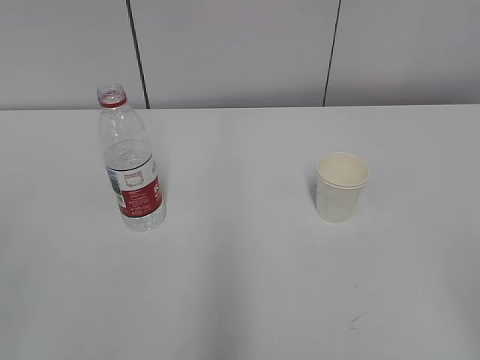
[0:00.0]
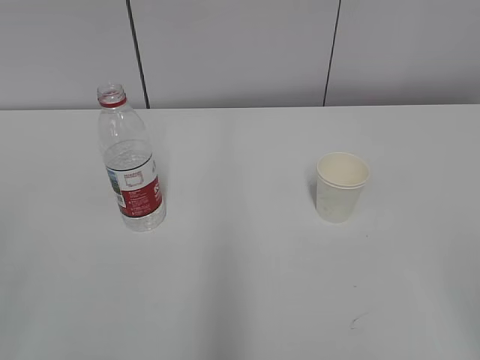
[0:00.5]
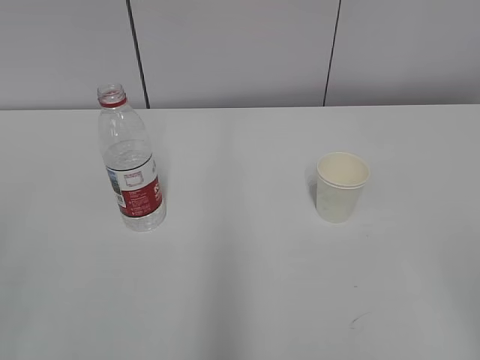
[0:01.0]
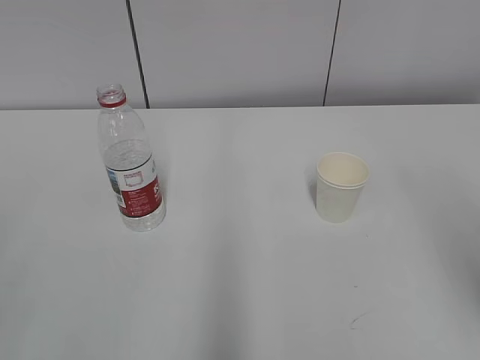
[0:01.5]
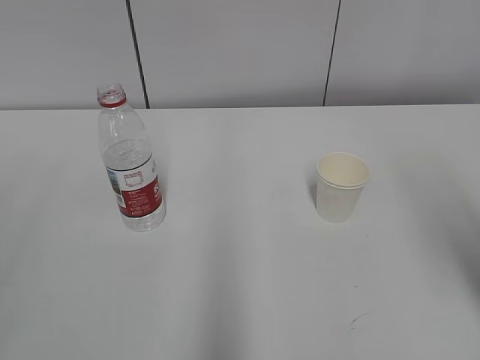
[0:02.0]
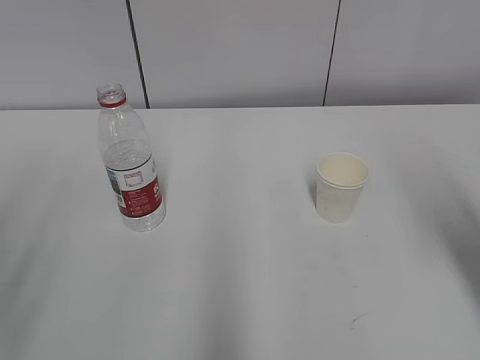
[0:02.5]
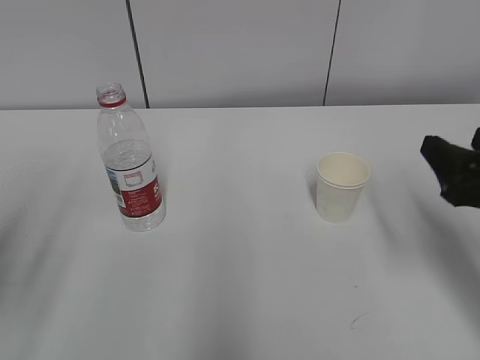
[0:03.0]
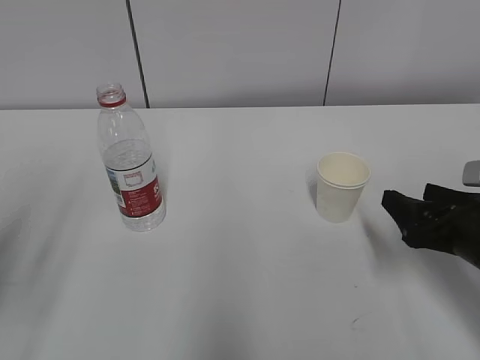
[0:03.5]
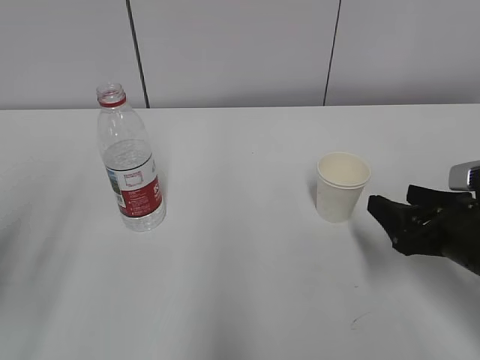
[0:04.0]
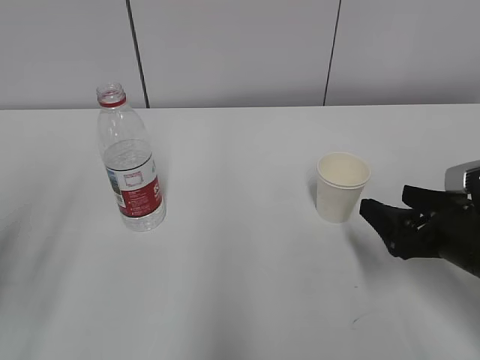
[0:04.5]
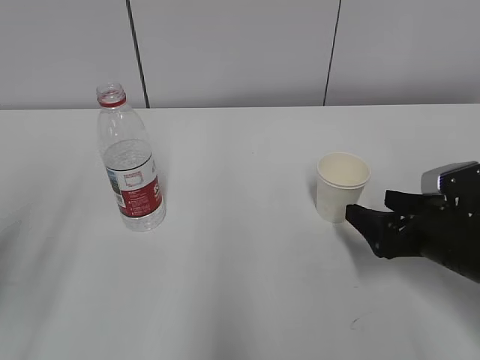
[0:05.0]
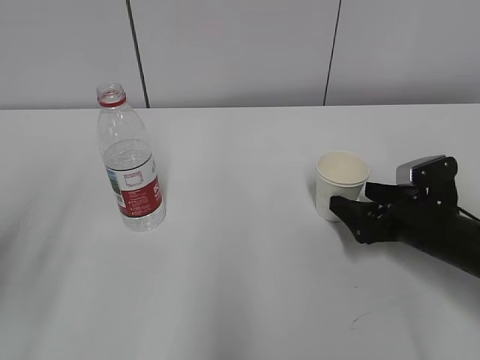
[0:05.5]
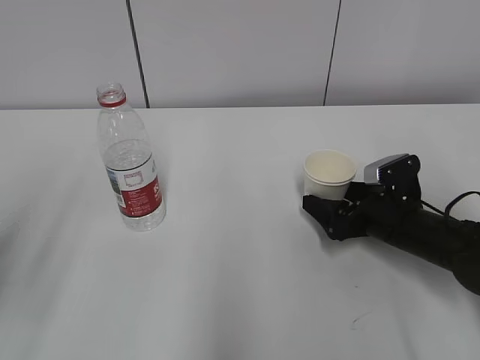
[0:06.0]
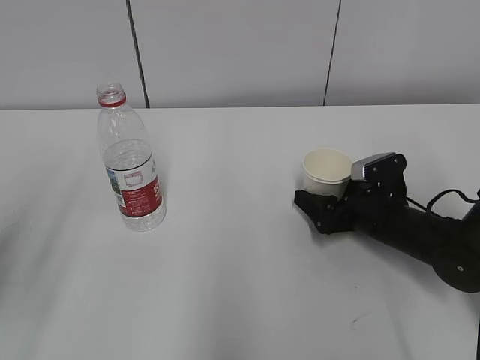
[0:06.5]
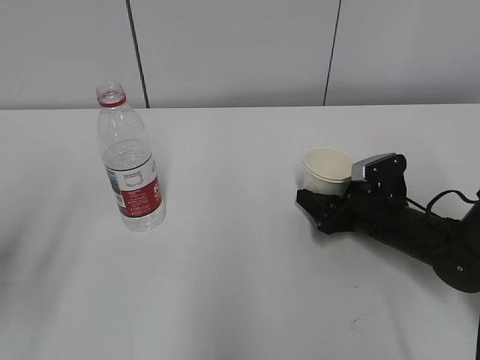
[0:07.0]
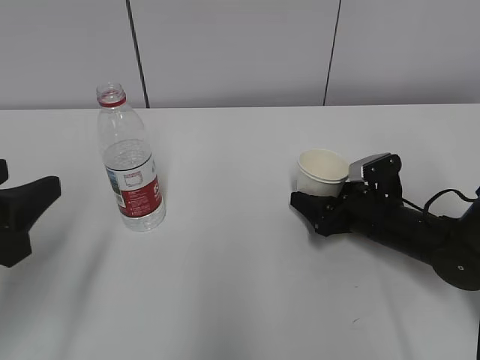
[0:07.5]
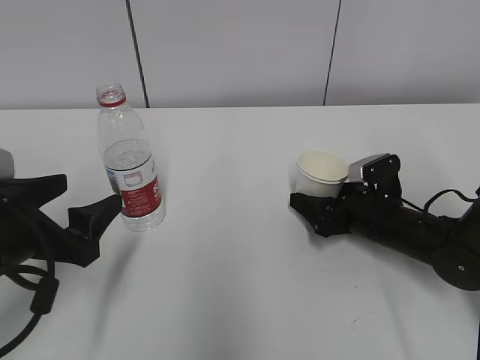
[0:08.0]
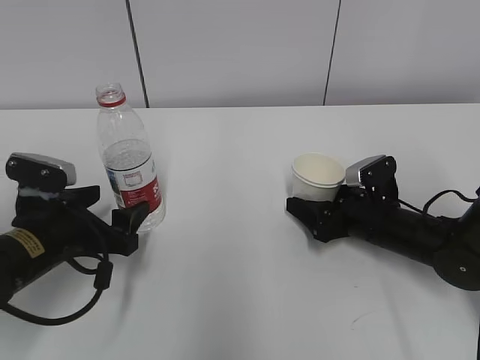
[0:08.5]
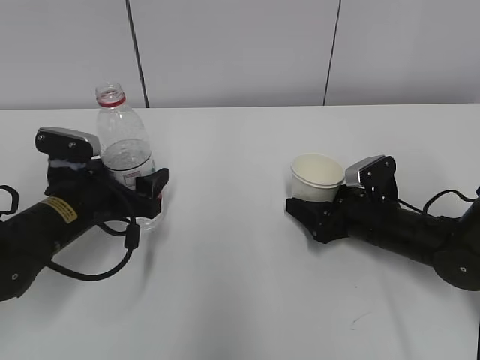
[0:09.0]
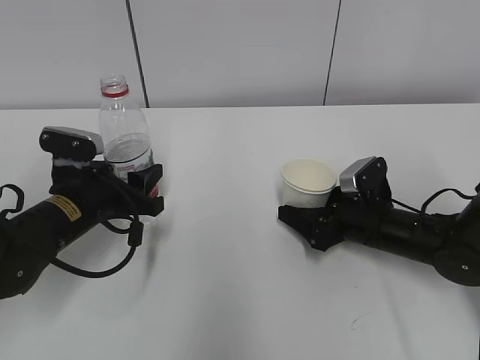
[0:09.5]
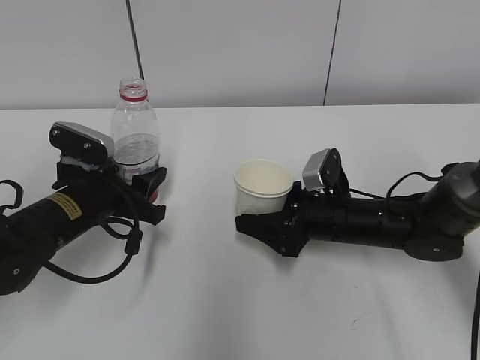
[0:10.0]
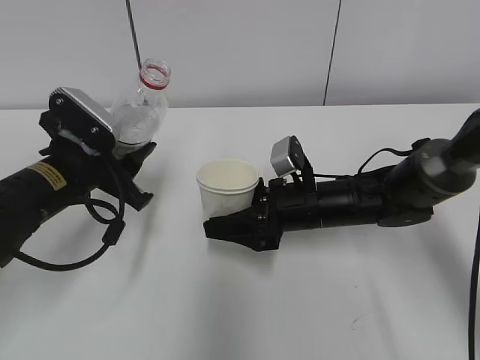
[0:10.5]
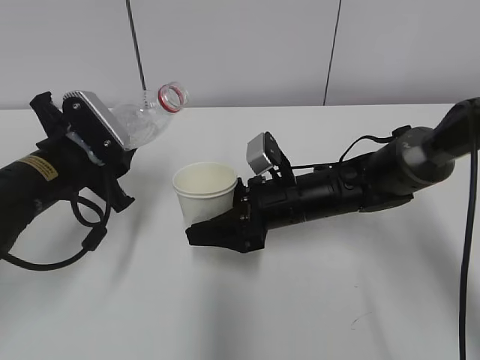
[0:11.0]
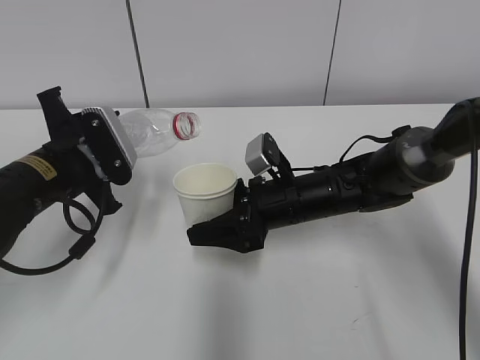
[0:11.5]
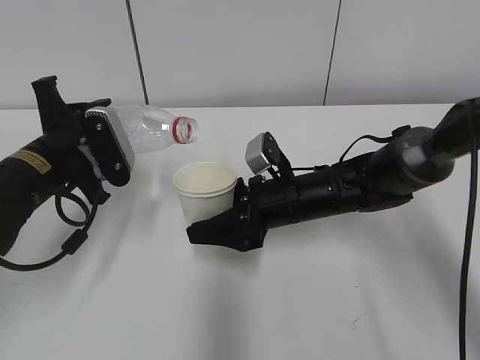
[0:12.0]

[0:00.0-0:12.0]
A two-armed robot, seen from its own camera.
Step, 0:00.0 to 0:06.0: Grab the paper cup with the right hand.
Step, 0:06.5 to 0:08.0: Grab the water bottle with the left hand.
Step, 0:08.5 to 0:10.5: Lift the paper cup with the right hand.
0:02.0 to 0:04.0: The right gripper moves downward and forward, roughly 20 cm.
0:04.0 to 0:06.0: The right gripper heads forward and downward, covering about 10 cm, and opens up.
0:06.0 to 0:08.0: The right gripper closes; the left gripper travels downward, forward and to the right by about 15 cm, and opens.
0:08.0 to 0:10.0: The right gripper is displaced to the left by roughly 5 cm. Meanwhile the left gripper is displaced forward by some 10 cm, and closes up.
0:10.0 to 0:12.0: The left gripper shifts some 5 cm upward, while the right gripper is displaced to the left by roughly 5 cm.

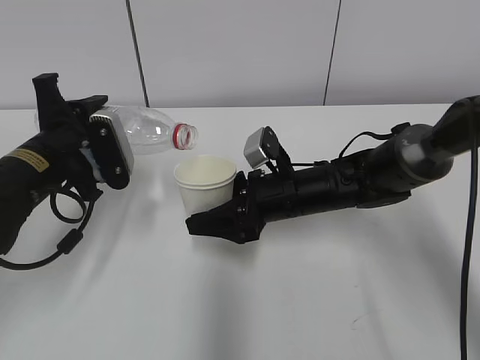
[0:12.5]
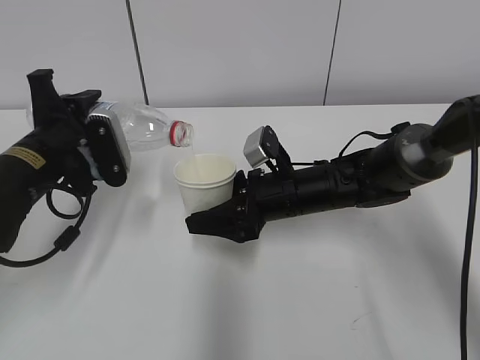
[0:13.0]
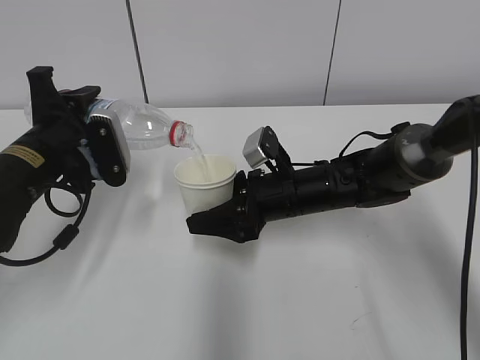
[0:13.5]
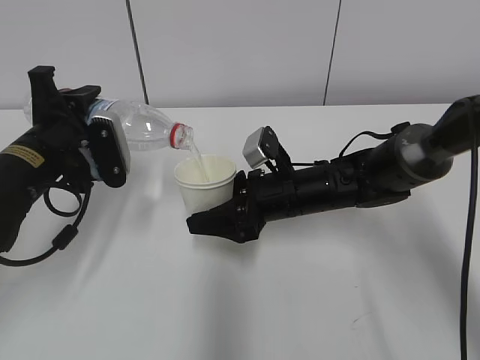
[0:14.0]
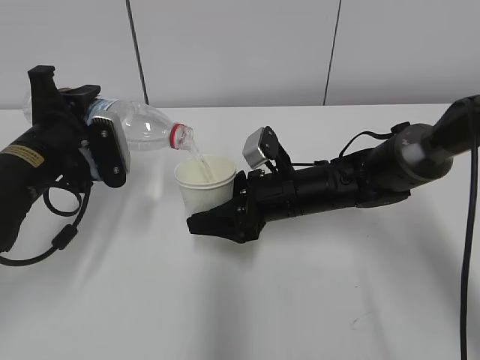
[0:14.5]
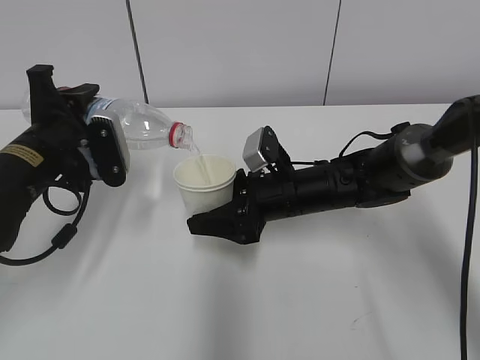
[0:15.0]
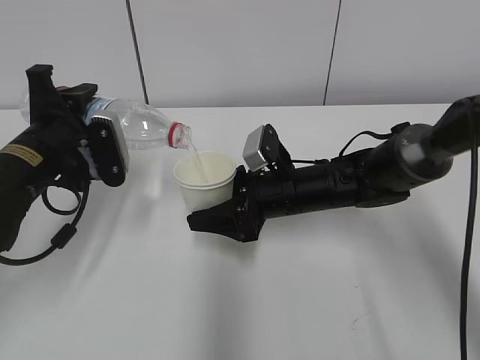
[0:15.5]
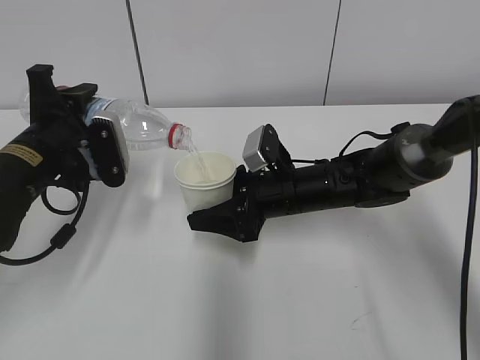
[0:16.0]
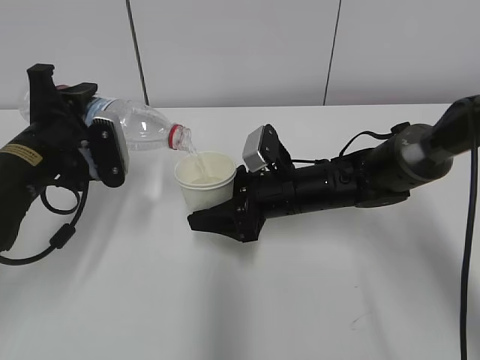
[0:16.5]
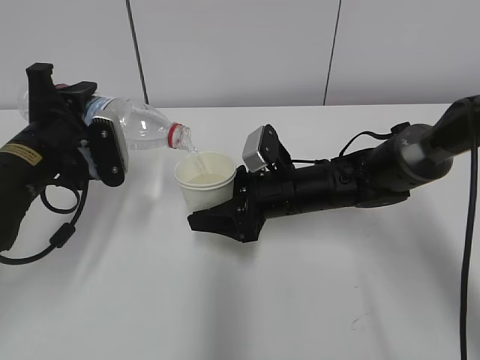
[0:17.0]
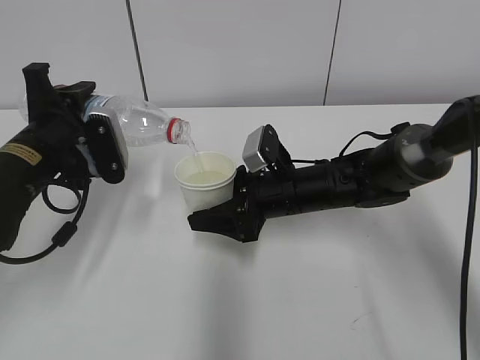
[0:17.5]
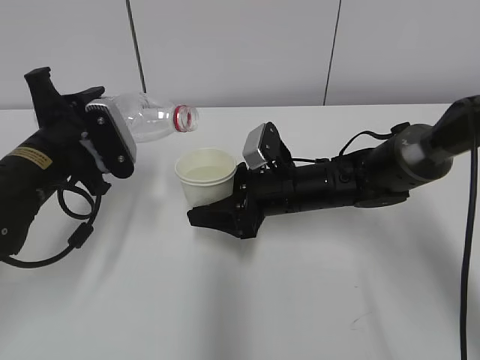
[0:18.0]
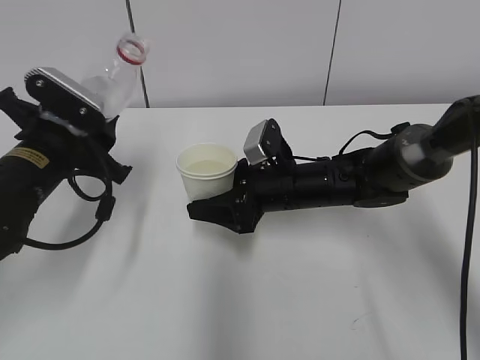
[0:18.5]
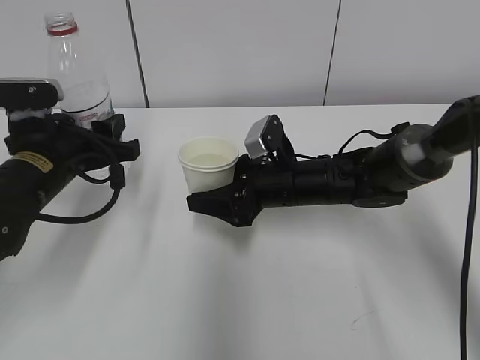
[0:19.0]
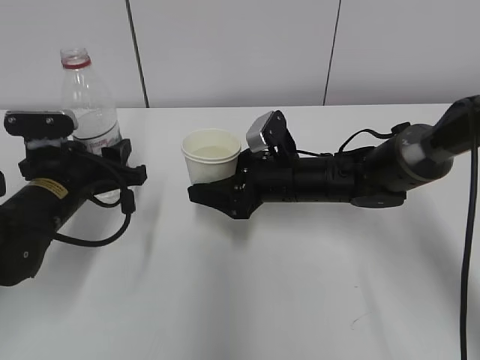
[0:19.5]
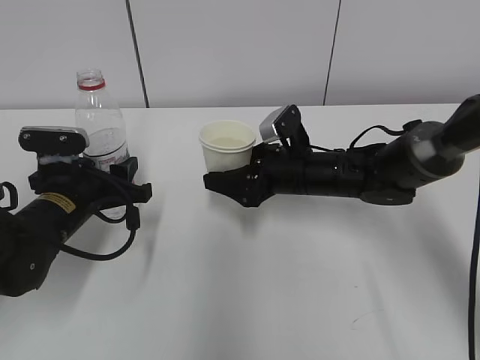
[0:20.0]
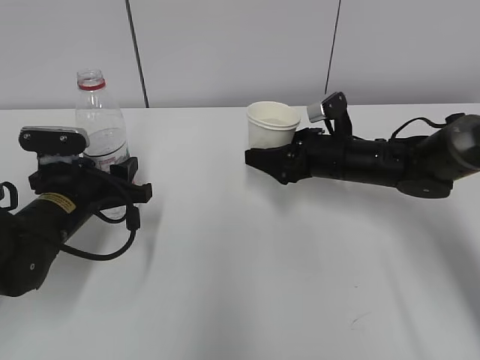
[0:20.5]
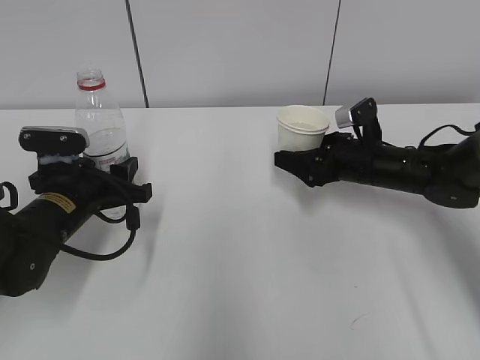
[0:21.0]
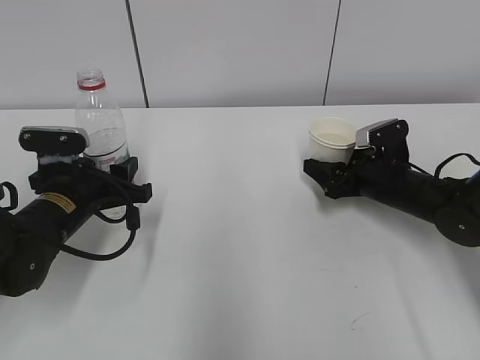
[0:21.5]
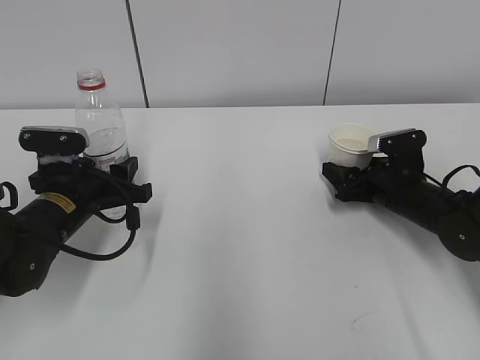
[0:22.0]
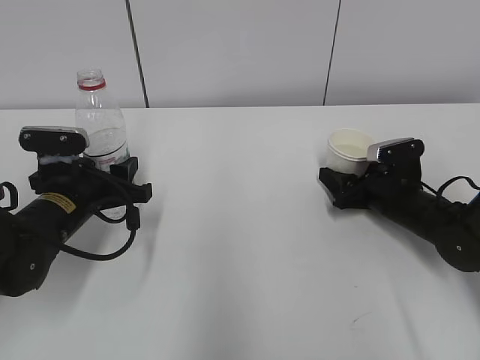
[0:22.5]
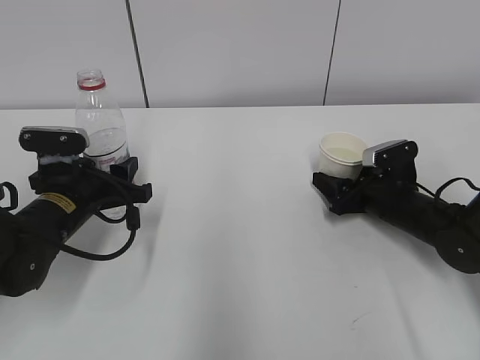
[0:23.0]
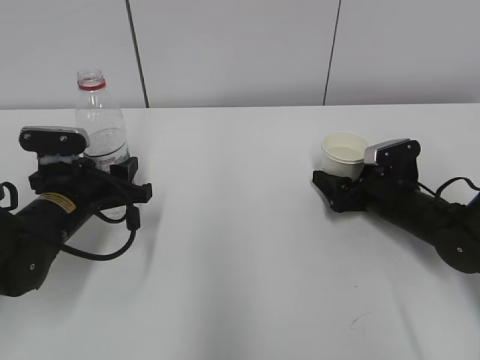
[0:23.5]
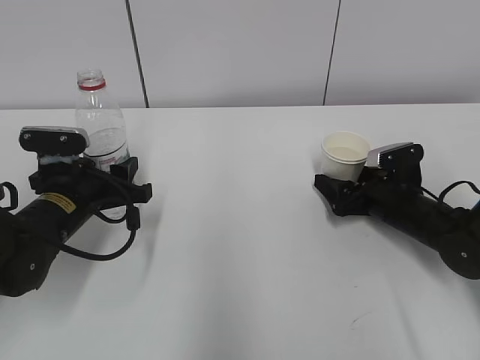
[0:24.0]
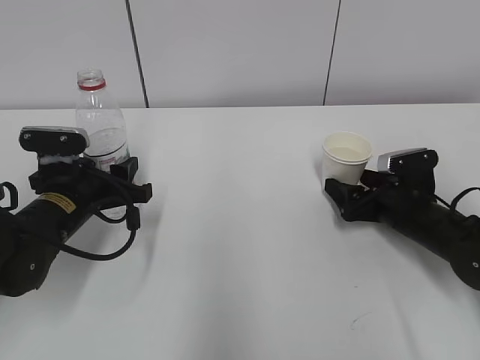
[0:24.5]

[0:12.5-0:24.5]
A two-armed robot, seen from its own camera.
Step, 0:12.5 to 0:14.5: Fill water with the right hand.
Step, 0:12.5 to 0:14.5: Pour water with the left hand.
Step, 0:15.0 to 0:15.5: Collect water with the left hand.
Step, 0:16.0 to 0:19.0: Place the paper cup with the right hand.
0:12.5 to 0:16.5: The grippers stay close to where they were, moving slightly.
0:18.5 to 0:20.5: The right gripper is displaced to the right by about 10 cm, while the left gripper is displaced downward by roughly 5 cm.
0:20.5 to 0:22.5: The right gripper shifts roughly 10 cm to the right and downward.
0:22.5 to 0:24.5: The right gripper opens.

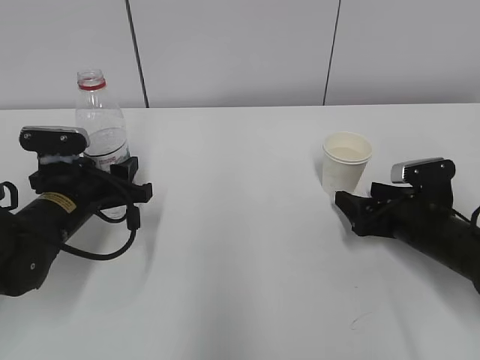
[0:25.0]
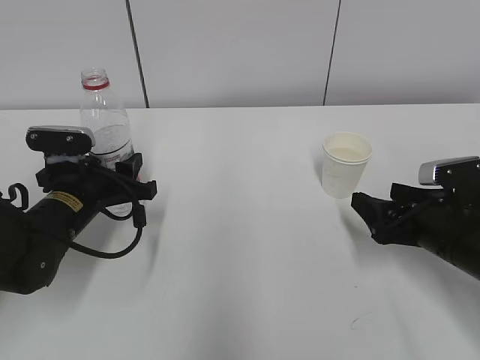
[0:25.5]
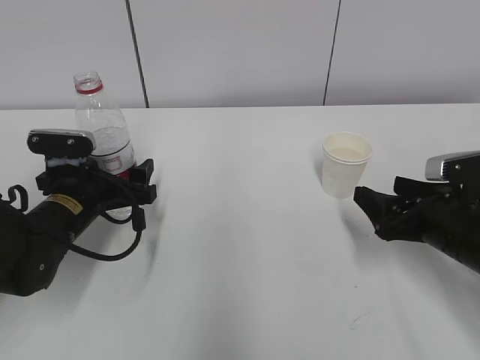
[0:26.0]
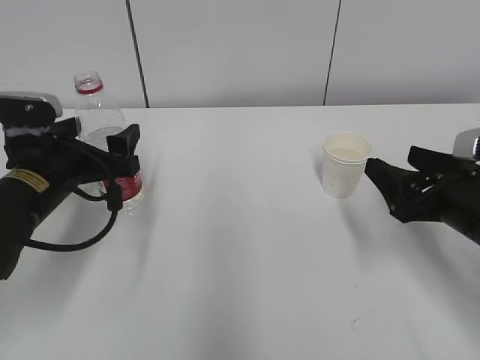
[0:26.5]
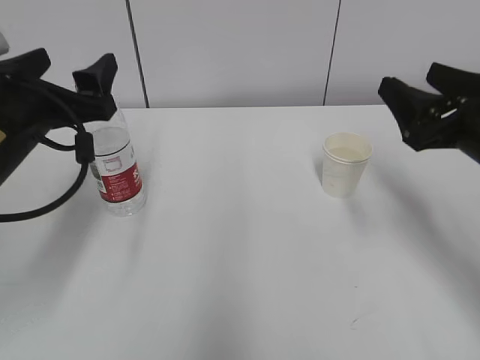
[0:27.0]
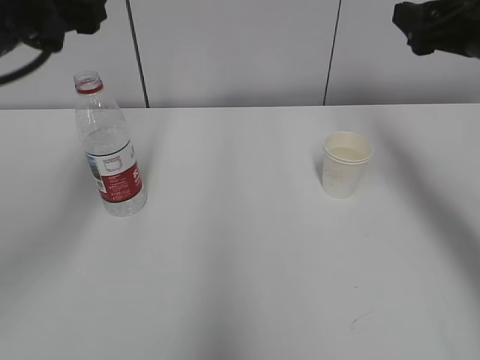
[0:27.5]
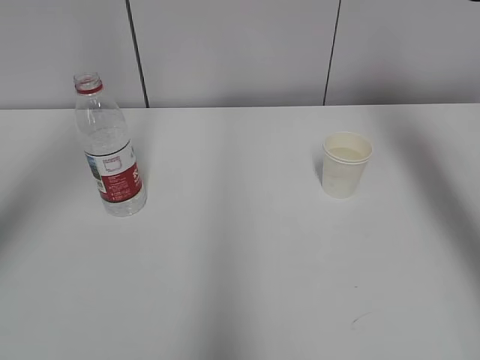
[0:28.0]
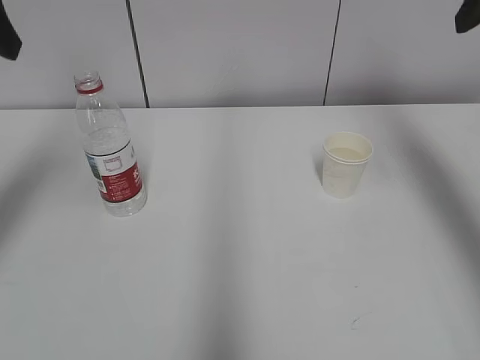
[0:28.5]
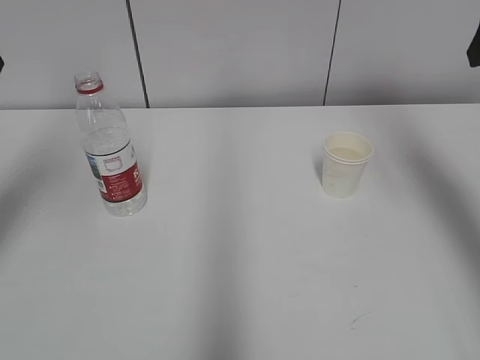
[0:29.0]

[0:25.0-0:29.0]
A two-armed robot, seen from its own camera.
0:25.0 to 0:27.0: Both grippers move upward, some 15 cm. The left gripper opens up.
0:27.0 to 0:29.0: The right gripper travels upward by approximately 15 cm. The left gripper is displaced upward and to the left by roughly 20 cm.
